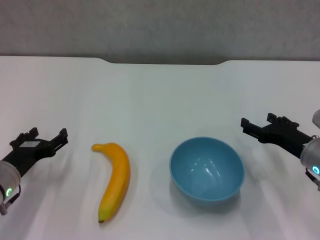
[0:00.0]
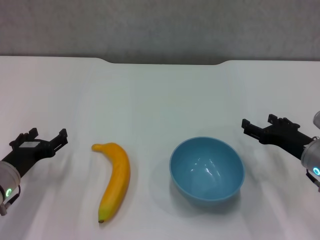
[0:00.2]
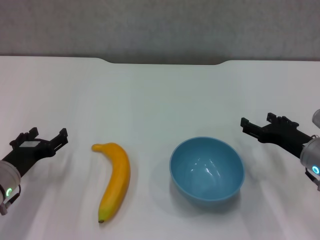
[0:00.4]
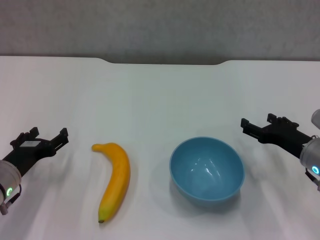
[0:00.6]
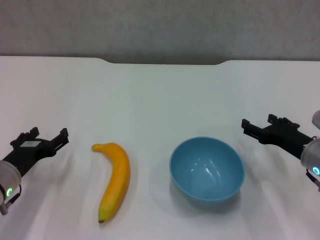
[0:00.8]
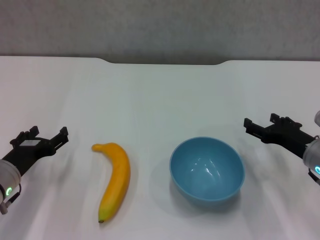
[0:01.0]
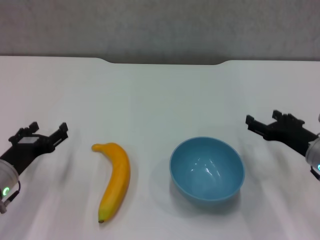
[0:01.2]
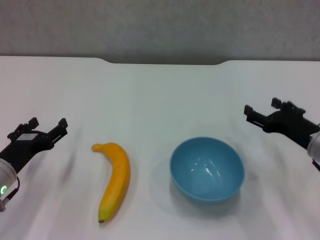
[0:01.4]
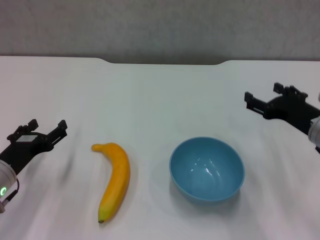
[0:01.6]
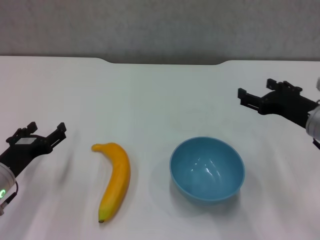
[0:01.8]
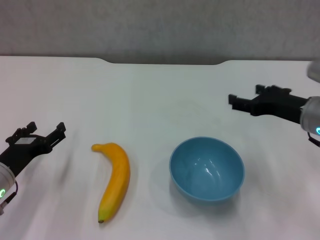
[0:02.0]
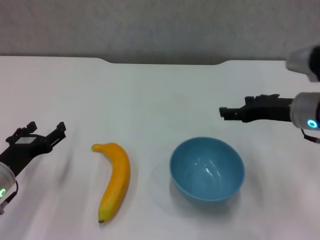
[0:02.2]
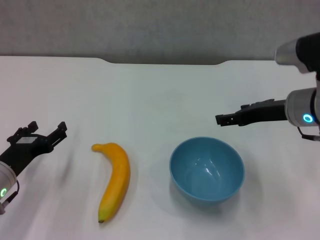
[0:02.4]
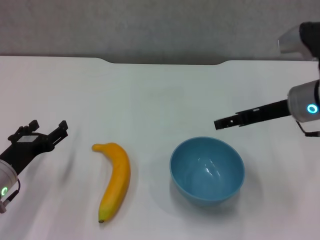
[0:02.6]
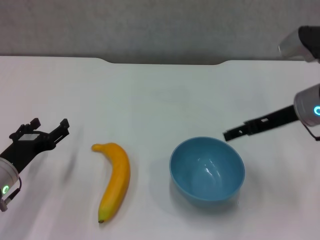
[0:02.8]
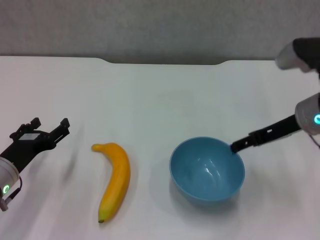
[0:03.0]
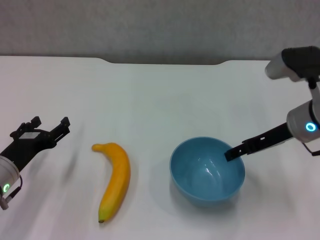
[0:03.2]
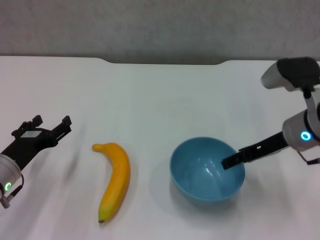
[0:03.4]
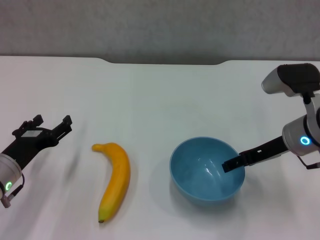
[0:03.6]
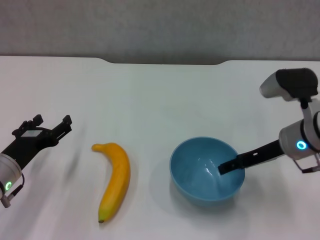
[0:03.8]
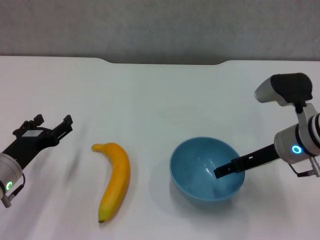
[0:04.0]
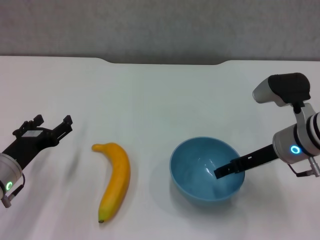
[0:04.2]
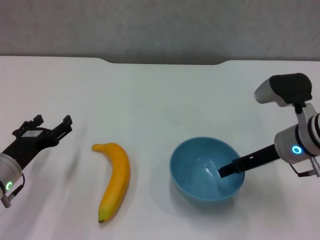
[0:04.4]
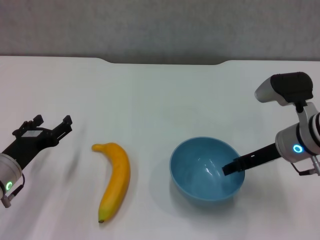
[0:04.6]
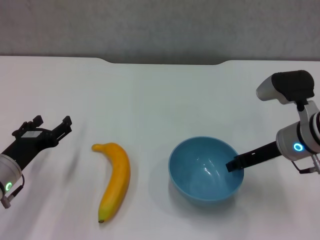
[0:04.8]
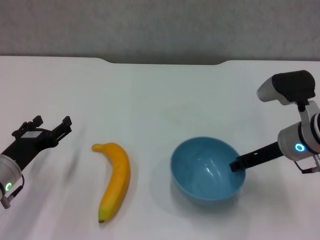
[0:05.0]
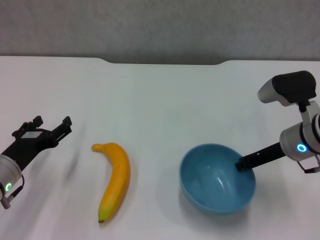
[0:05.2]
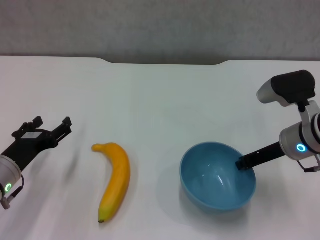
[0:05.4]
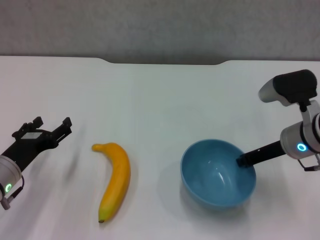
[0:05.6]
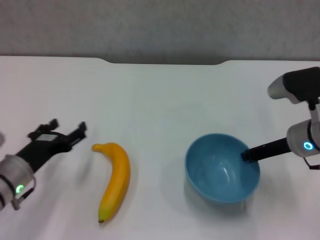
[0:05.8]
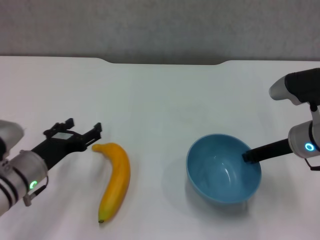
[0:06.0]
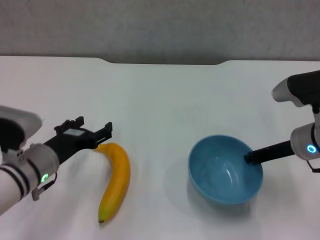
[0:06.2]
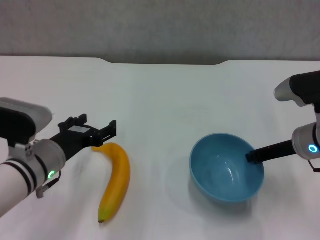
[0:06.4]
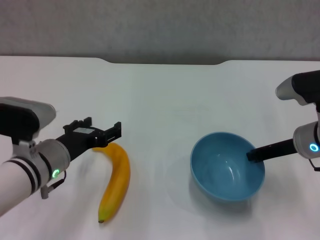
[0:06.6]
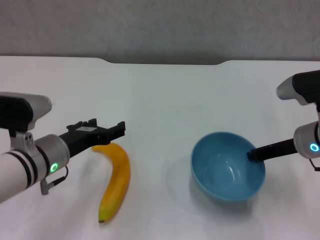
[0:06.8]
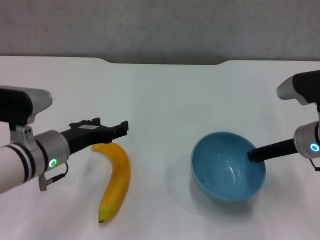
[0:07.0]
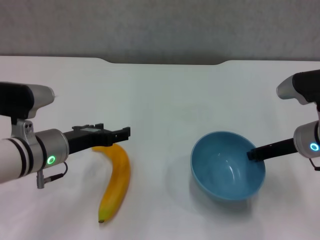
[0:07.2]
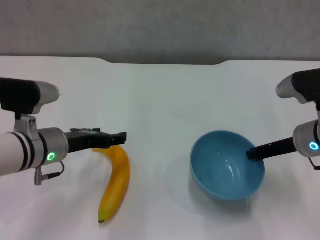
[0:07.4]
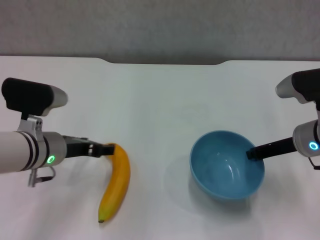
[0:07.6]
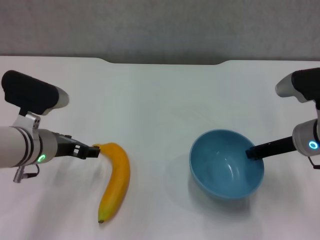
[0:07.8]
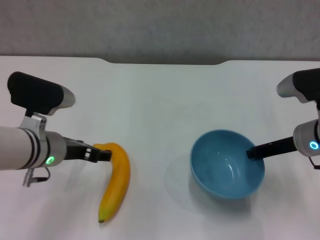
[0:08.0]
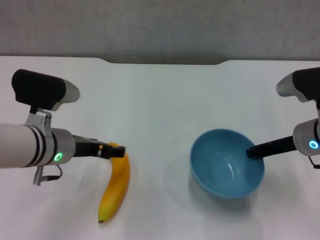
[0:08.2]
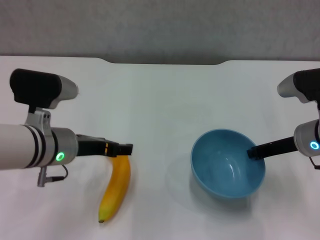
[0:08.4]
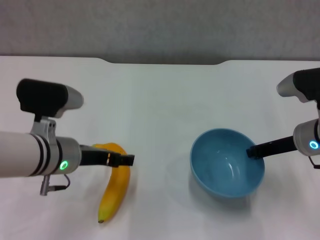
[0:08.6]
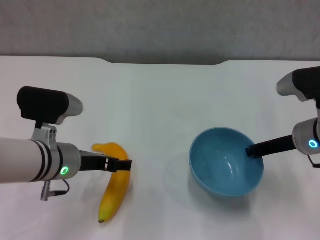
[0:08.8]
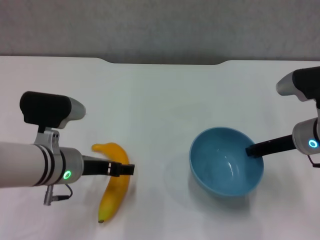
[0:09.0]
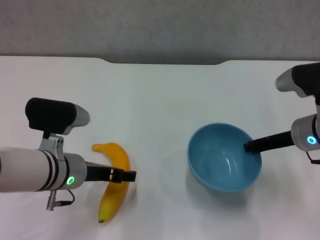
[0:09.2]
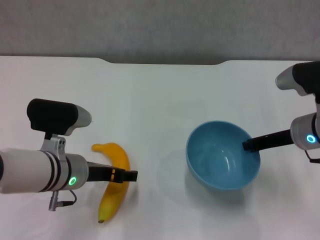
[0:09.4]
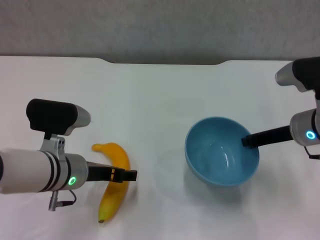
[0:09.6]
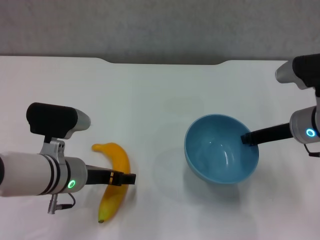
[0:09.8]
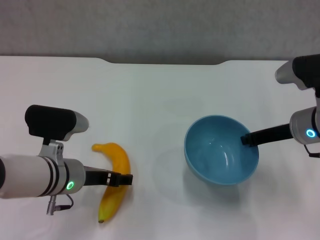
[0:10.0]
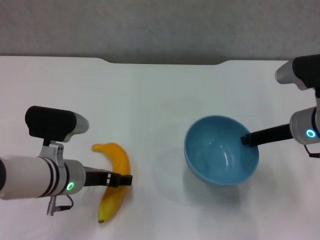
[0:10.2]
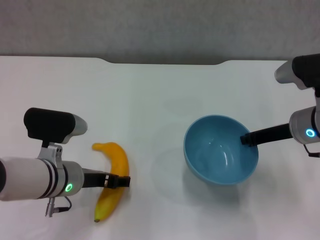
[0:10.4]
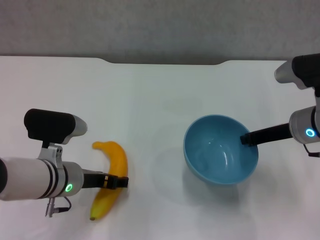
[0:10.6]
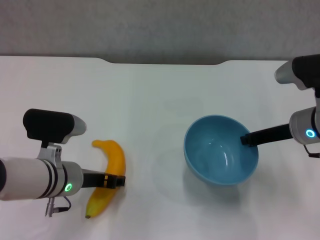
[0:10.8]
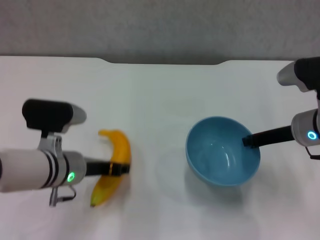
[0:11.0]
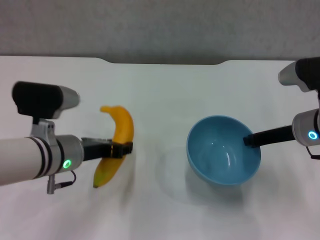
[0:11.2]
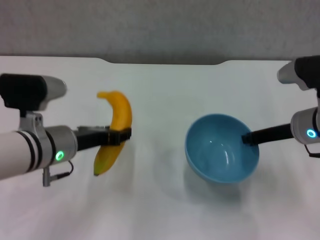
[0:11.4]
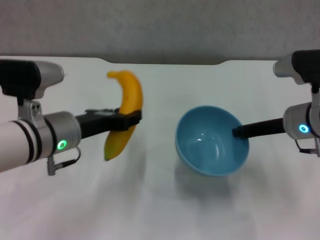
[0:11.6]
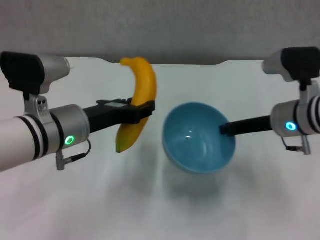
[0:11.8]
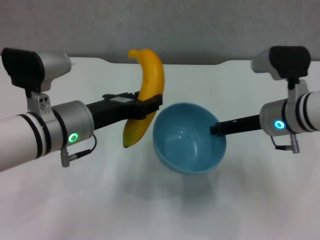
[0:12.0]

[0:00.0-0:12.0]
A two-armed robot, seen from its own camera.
Step, 0:00.0 to 0:05.4: Grasp the blue bowl with right gripper.
Step, 0:05.6 to 0:06.2: Lift the blue bowl with right gripper.
Step, 0:06.6 to 0:10.6: Grasp the banana with left gripper.
0:00.0 to 0:01.6: The right gripper moves upward, roughly 5 cm.
0:01.6 to 0:03.0: The right gripper goes approximately 5 cm upward.
0:03.0 to 0:04.4: The right gripper goes approximately 5 cm downward.
0:04.4 to 0:06.0: The right gripper closes.
0:06.0 to 0:07.6: The left gripper goes approximately 5 cm upward.
0:07.6 to 0:10.4: There are only small adjustments of the grippers.
0:10.4 to 0:12.0: The left gripper travels upward by some 10 cm, and closes.

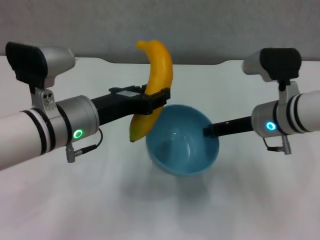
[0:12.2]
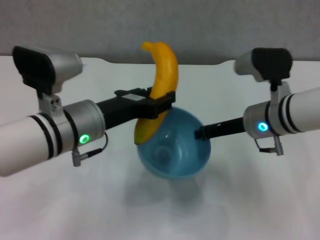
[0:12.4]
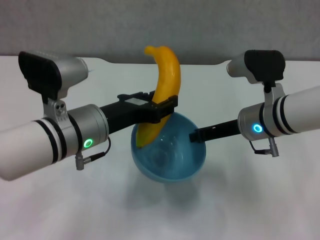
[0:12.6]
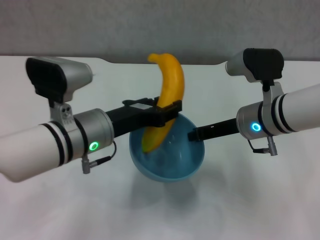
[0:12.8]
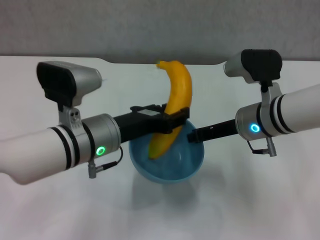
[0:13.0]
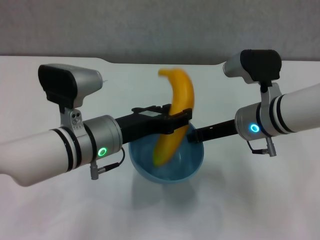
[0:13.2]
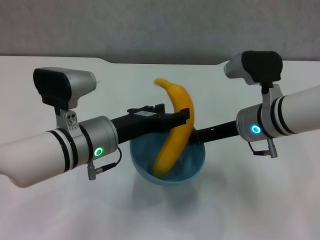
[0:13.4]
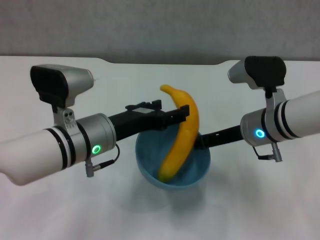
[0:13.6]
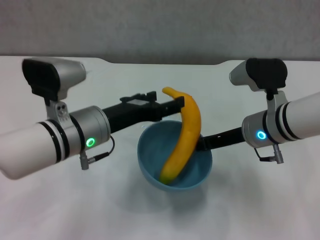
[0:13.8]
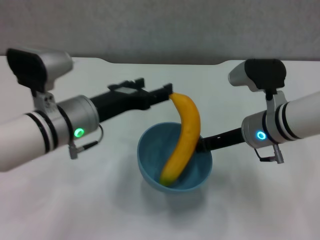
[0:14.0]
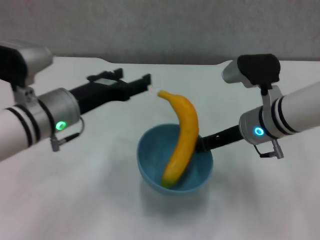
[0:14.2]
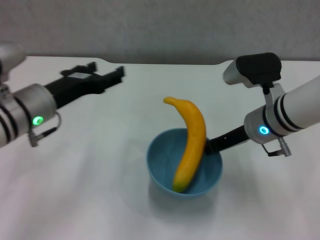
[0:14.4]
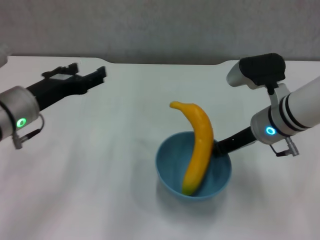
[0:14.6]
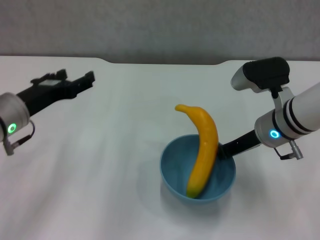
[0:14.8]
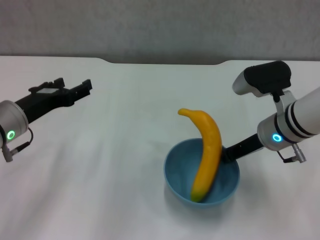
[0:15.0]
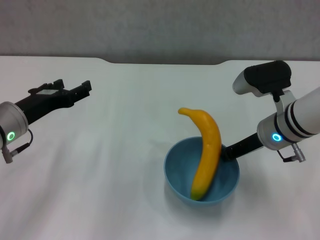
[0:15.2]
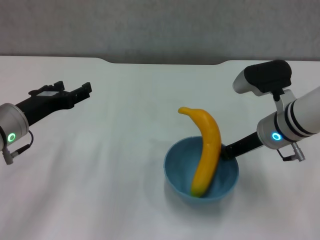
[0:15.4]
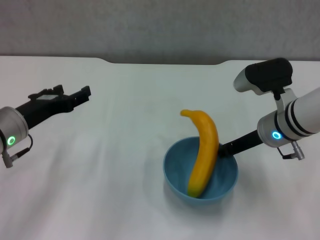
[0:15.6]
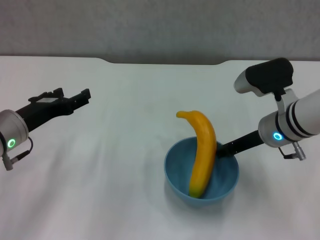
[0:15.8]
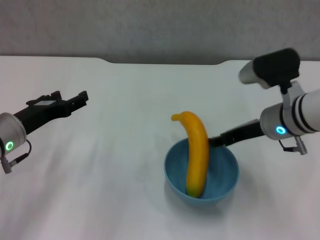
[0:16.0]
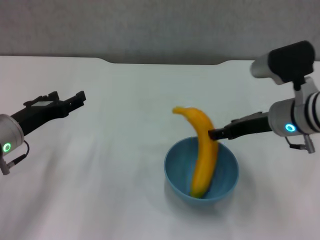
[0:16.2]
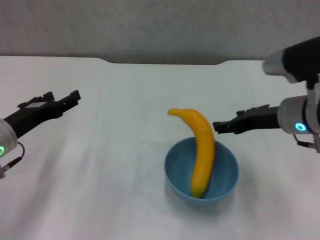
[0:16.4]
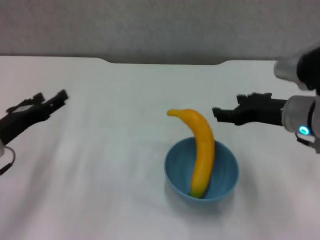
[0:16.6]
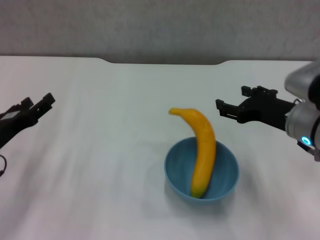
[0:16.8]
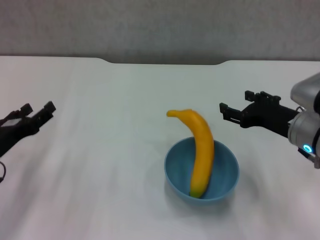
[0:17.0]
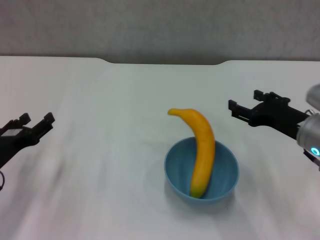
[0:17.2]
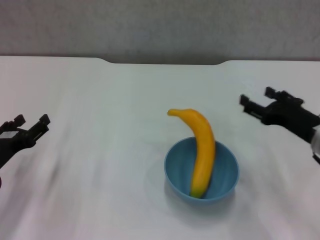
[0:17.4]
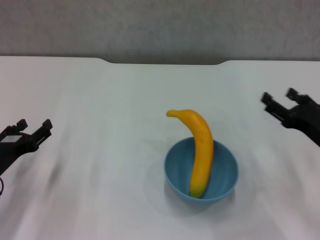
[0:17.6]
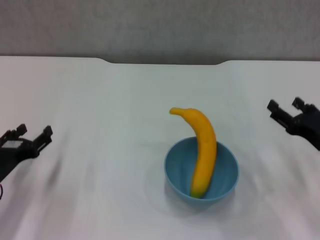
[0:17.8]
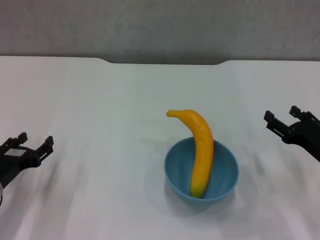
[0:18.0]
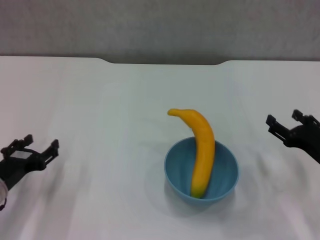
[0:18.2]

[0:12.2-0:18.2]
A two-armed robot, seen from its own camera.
Step, 0:12.2 to 0:13.6: Place the banana in the blue bowl with left gripper.
Step, 0:13.8 to 0:16.6: Place the bowl on the table with right gripper.
0:12.2 to 0:13.8: The left gripper opens.
0:13.8 to 0:15.2: The left gripper goes about 10 cm to the left.
0:15.2 to 0:16.6: The right gripper moves approximately 5 cm, and opens its fingers. The left gripper shifts by some 5 cm.
0:16.6 to 0:18.2: The left gripper heads downward, covering roughly 5 cm. The right gripper goes roughly 15 cm downward, to the right and backward.

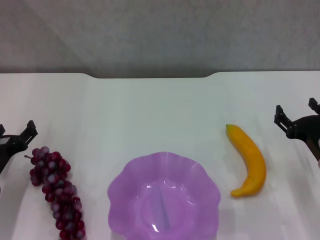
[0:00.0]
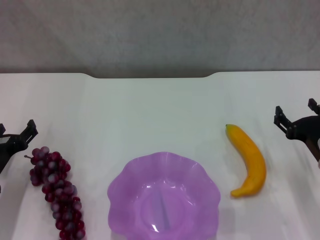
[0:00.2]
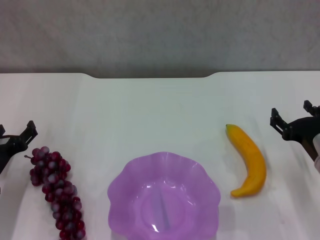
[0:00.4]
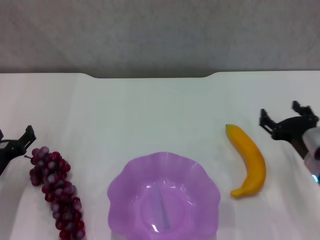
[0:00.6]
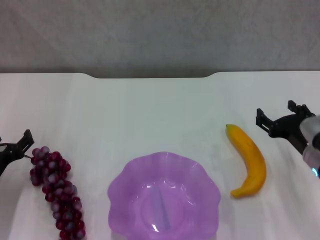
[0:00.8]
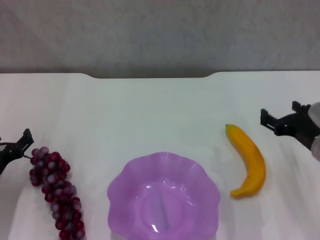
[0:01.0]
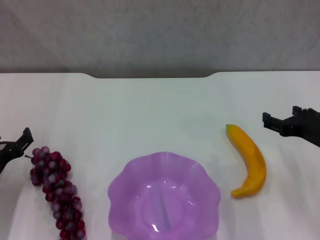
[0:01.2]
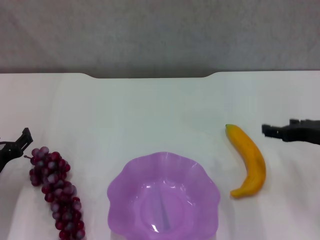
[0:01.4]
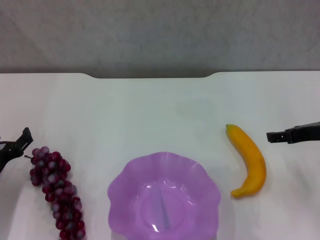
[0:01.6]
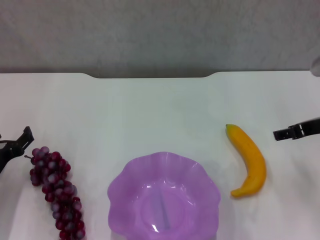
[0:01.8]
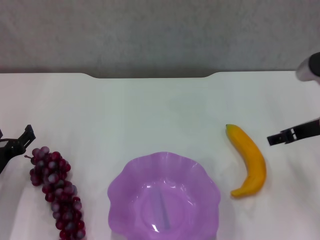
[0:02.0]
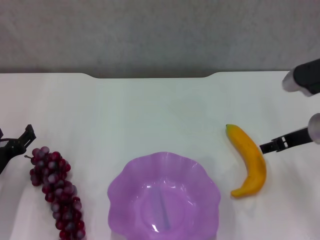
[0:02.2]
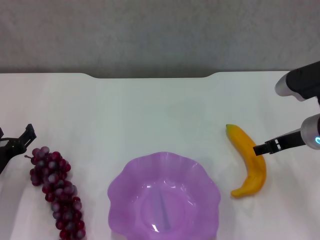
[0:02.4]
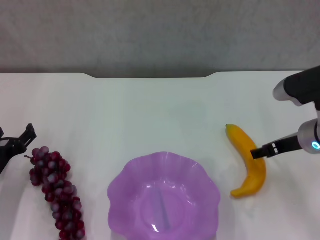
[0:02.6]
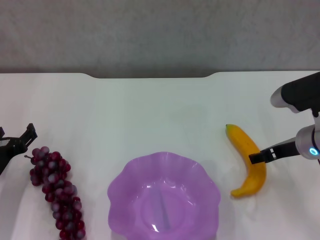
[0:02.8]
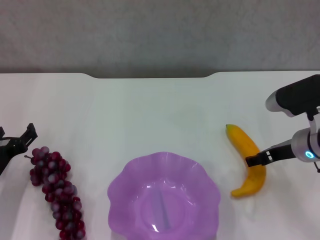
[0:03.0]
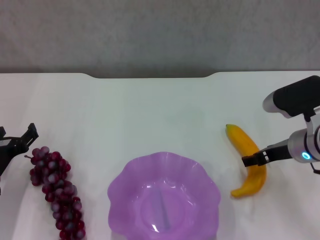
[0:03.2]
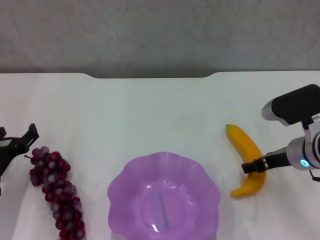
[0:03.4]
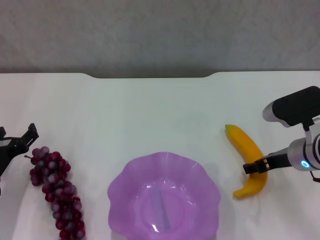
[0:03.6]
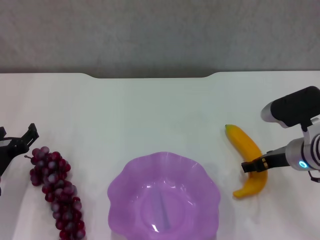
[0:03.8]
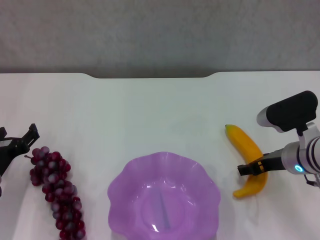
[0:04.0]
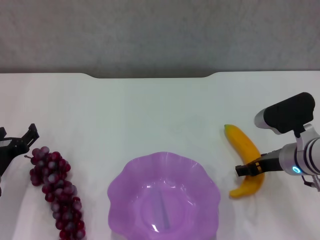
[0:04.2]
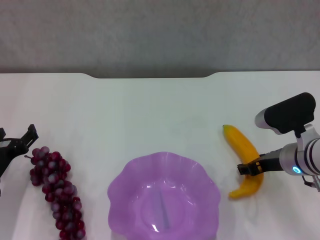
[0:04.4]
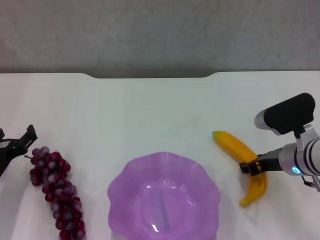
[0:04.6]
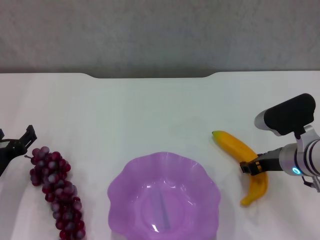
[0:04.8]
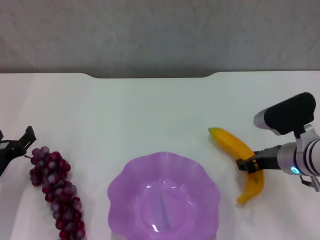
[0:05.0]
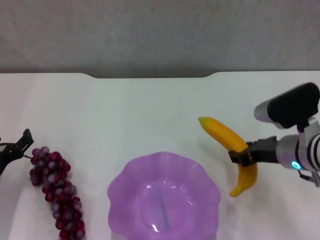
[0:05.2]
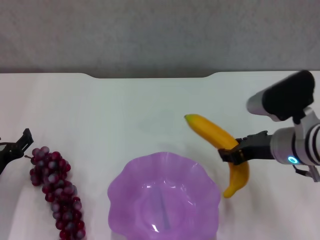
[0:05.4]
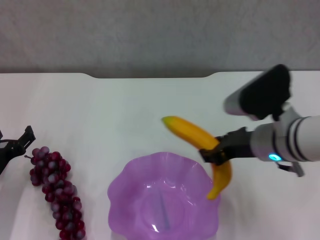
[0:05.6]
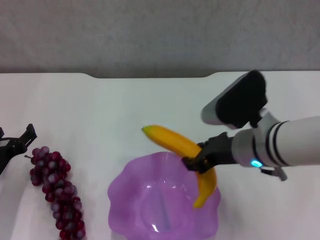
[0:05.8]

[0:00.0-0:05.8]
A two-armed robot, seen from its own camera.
Step, 0:00.0 to 0:04.6: Grasp the banana with right gripper.
0:00.0 to 0:01.4: The right gripper travels upward by roughly 10 cm.
0:01.4 to 0:02.8: The right gripper ends up roughly 5 cm from where it was.
0:02.8 to 0:04.4: There are only small adjustments of the grippers.
0:04.4 to 0:05.8: The right gripper goes about 10 cm to the left and upward, and closes.
